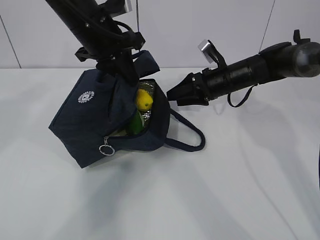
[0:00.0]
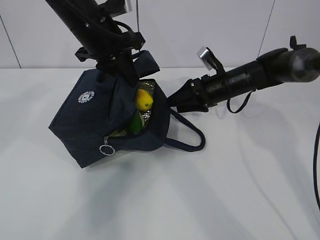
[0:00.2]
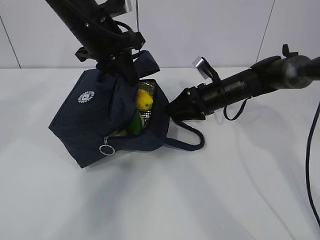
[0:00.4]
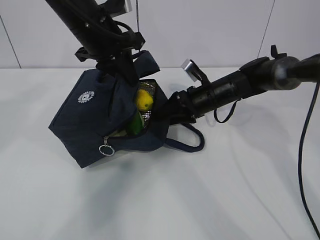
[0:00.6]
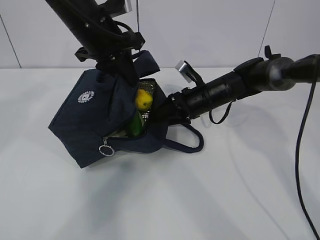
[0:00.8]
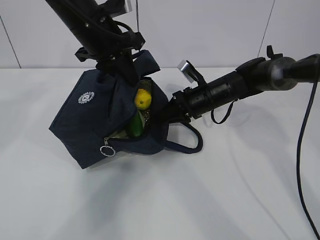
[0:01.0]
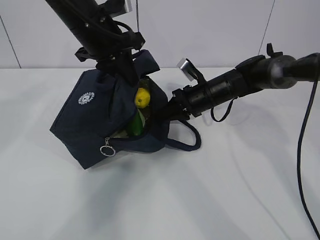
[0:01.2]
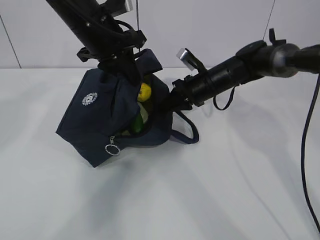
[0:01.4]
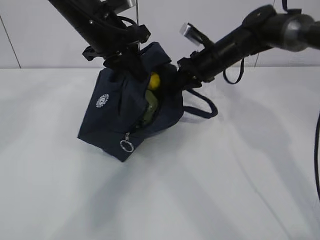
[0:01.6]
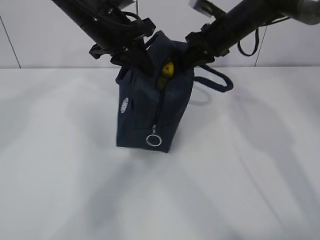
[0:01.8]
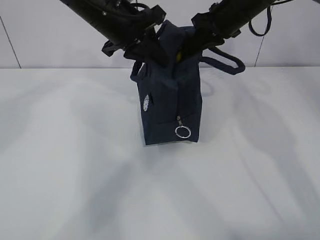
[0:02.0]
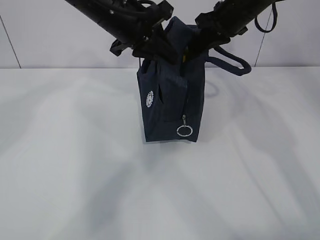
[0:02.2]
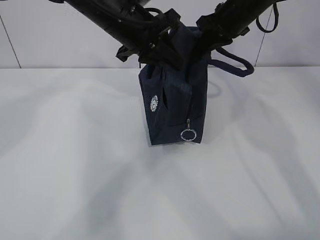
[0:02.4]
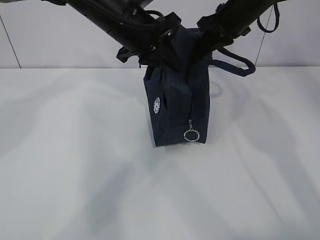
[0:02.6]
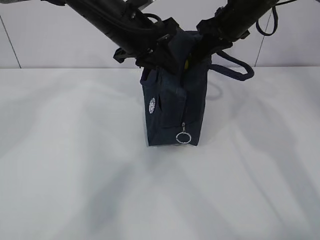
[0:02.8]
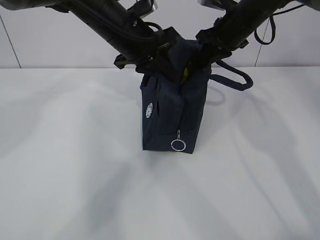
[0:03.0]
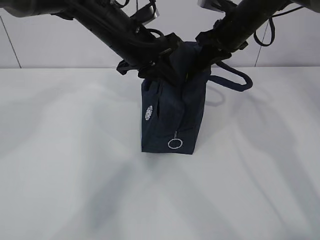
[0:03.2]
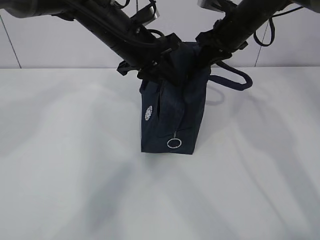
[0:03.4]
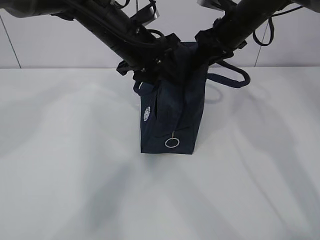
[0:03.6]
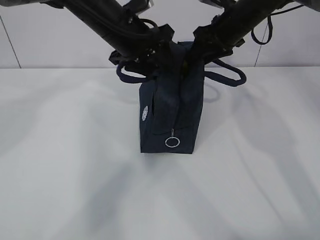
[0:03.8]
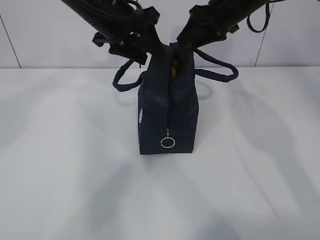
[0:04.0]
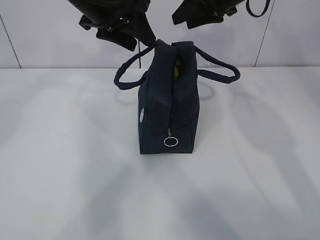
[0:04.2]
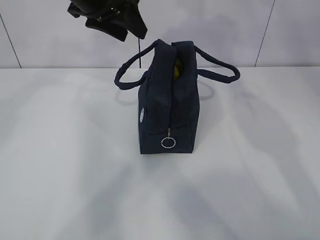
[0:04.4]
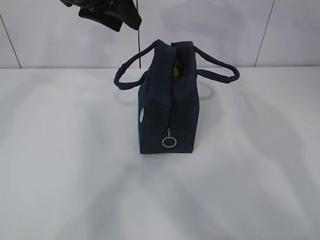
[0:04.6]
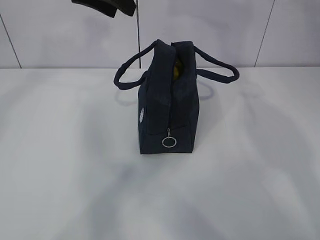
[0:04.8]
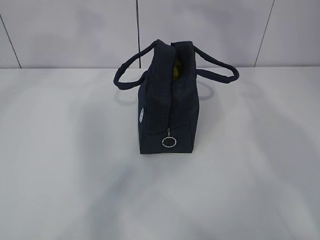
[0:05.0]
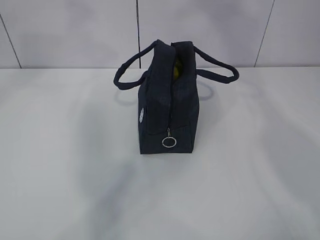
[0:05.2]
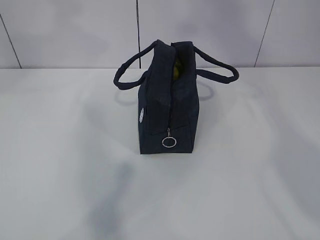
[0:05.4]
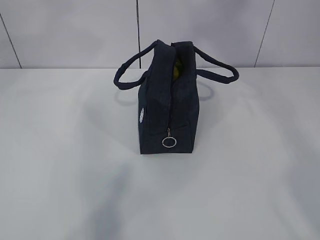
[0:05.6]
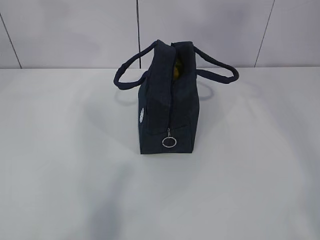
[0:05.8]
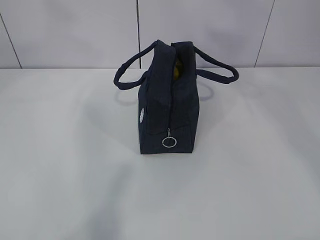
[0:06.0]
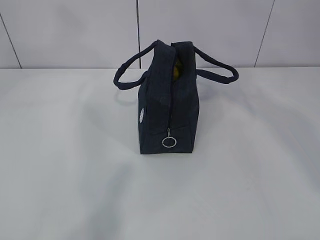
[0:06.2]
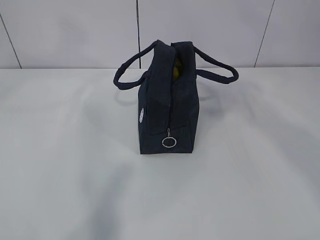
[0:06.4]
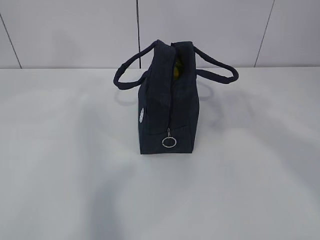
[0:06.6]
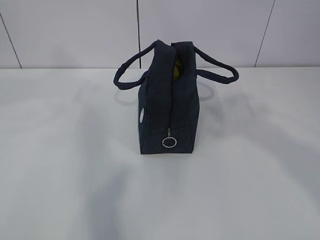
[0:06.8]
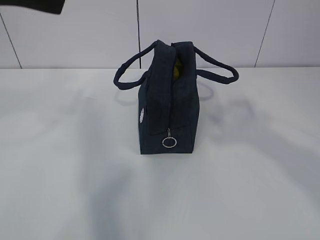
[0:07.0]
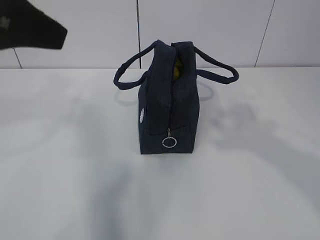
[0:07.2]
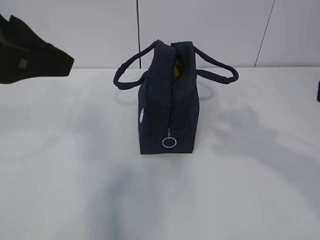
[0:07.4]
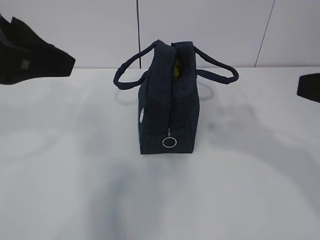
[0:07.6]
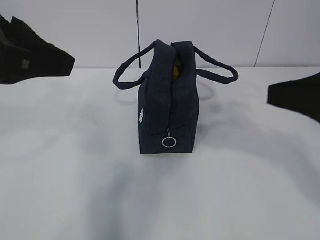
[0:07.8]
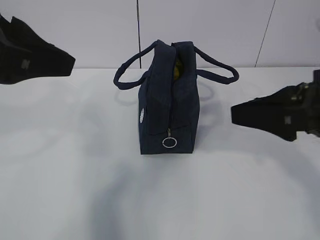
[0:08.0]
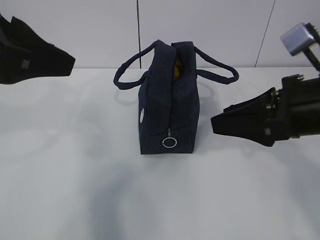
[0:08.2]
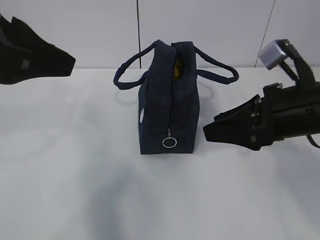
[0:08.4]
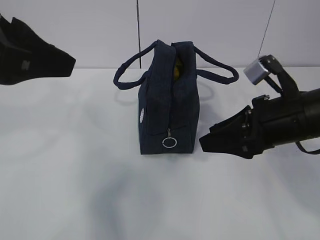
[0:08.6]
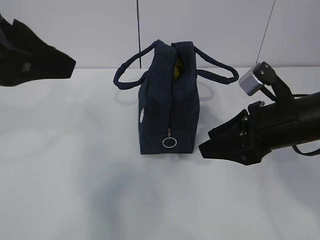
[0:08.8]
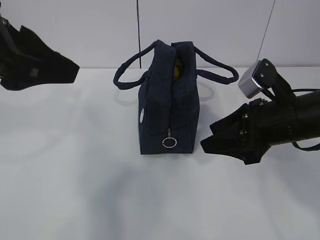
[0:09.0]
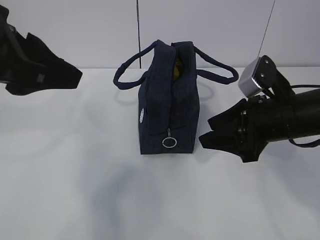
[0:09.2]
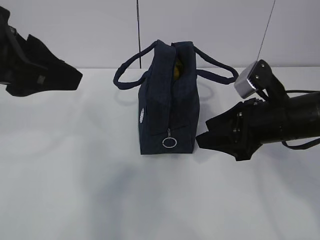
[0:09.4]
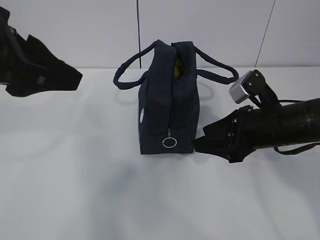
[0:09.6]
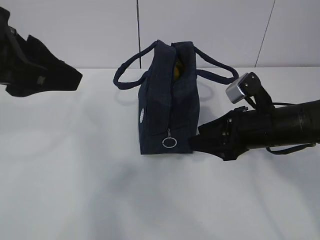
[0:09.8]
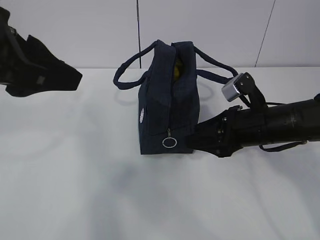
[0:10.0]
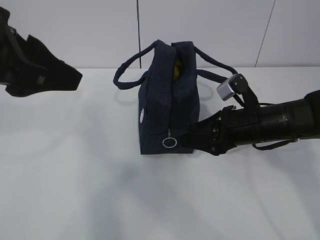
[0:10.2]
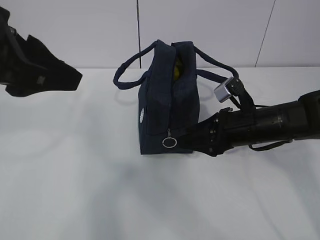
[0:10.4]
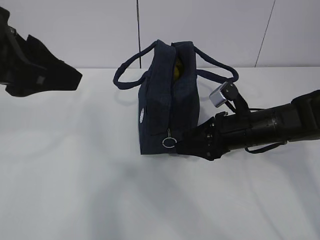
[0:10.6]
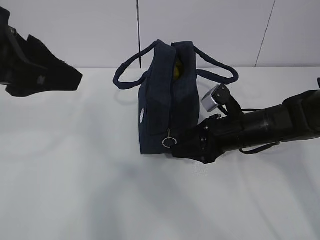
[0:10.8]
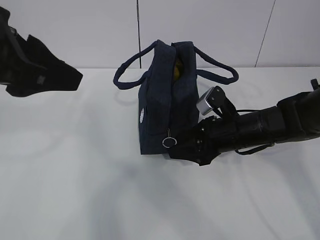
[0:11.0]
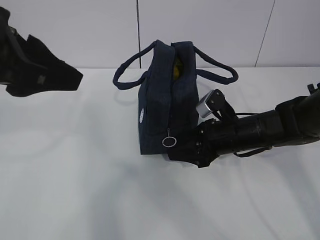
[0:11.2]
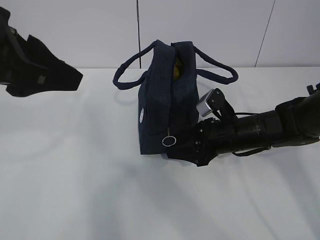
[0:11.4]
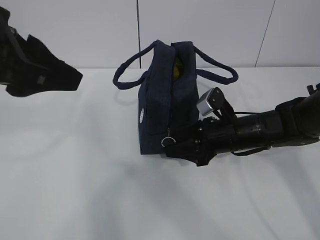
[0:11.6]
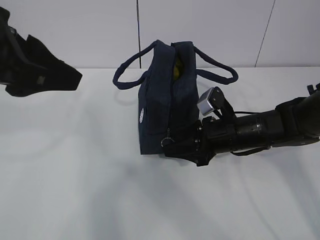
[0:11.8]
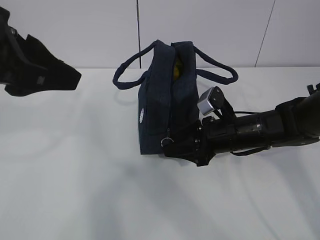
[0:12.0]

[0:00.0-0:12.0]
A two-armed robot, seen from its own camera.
0:00.0 to 0:01.6: The right gripper shifts by about 5 cm, and closes its fingers.
0:01.6 to 0:03.0: The right gripper shifts about 10 cm upward.
0:03.0 to 0:04.4: The left gripper shifts roughly 10 cm upward and to the left, and opens. The right gripper heads upward, covering about 10 cm, and opens.
0:04.4 to 0:06.0: The left gripper is displaced upward and backward by some 20 cm. The right gripper heads backward and upward, covering approximately 50 cm.
0:06.0 to 0:07.6: The right gripper is displaced downward by roughly 30 cm. Meanwhile the left gripper travels downward and backward by about 15 cm.
0:07.6 to 0:09.0: The right gripper moves forward and downward, about 20 cm.
0:09.0 to 0:10.4: The right gripper goes roughly 10 cm downward and forward.
0:10.4 to 0:12.0: There are only small adjustments of the grippers.

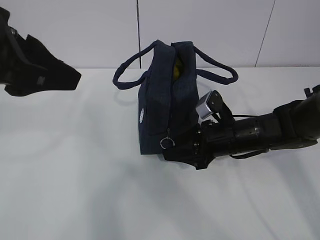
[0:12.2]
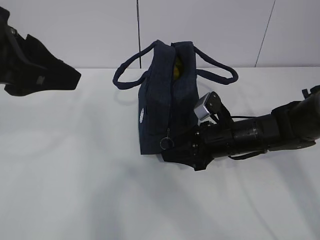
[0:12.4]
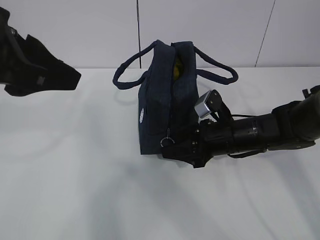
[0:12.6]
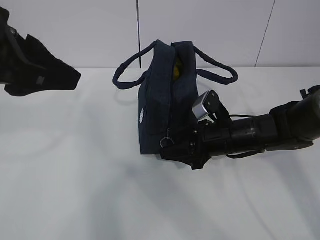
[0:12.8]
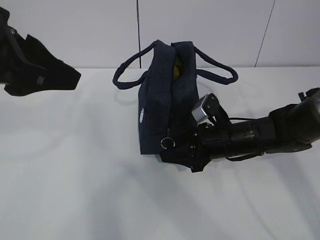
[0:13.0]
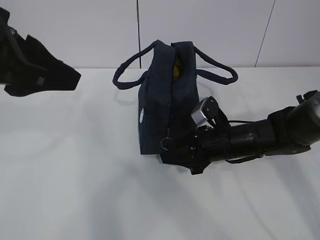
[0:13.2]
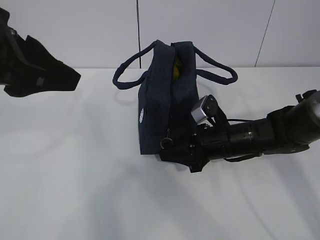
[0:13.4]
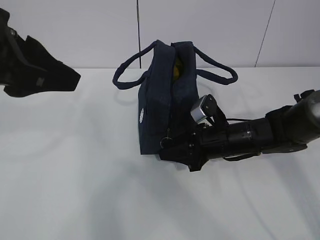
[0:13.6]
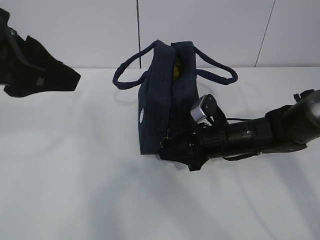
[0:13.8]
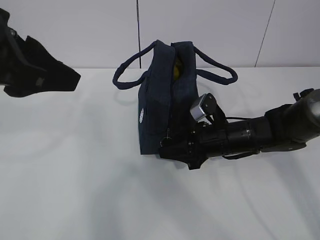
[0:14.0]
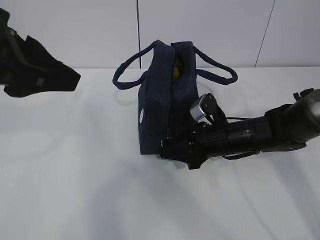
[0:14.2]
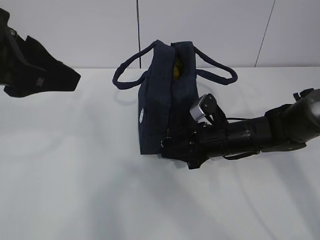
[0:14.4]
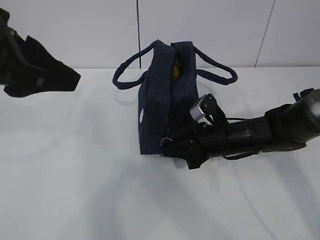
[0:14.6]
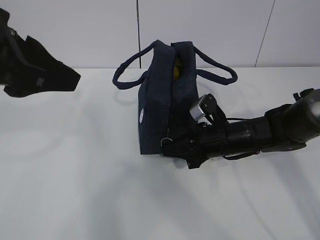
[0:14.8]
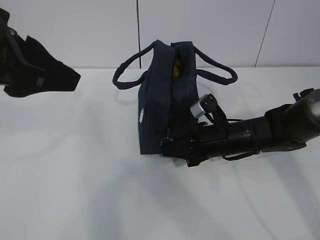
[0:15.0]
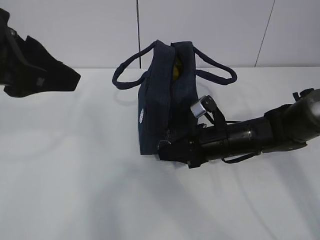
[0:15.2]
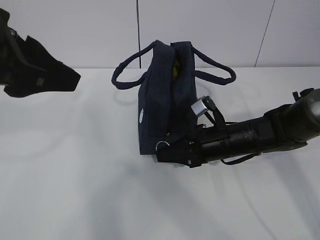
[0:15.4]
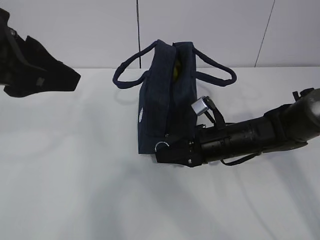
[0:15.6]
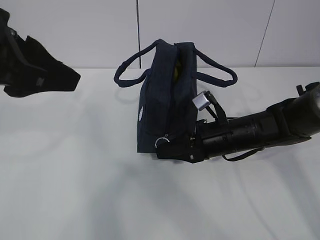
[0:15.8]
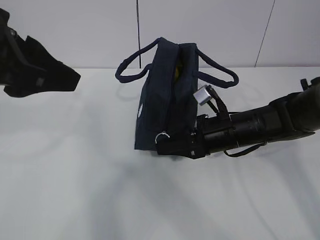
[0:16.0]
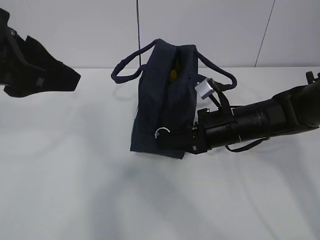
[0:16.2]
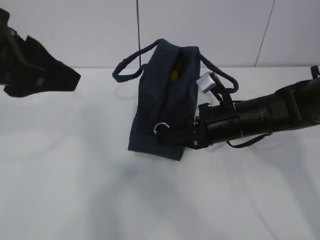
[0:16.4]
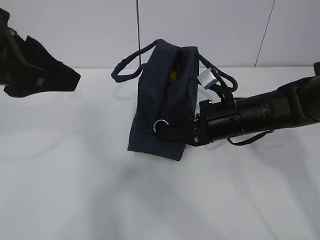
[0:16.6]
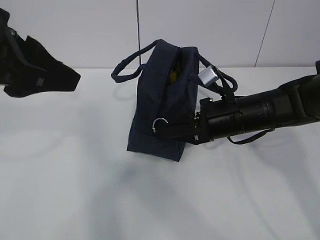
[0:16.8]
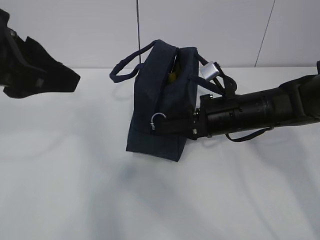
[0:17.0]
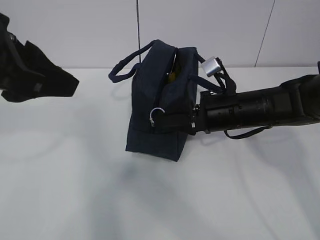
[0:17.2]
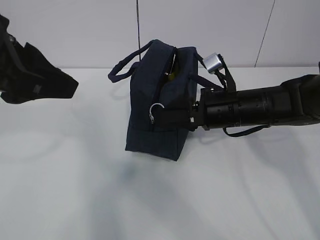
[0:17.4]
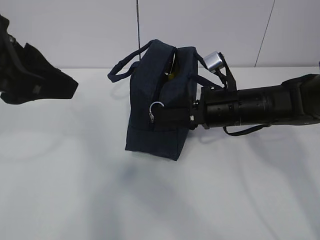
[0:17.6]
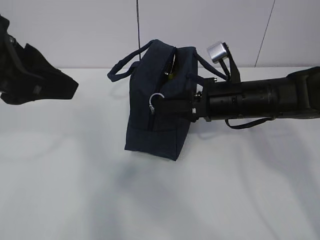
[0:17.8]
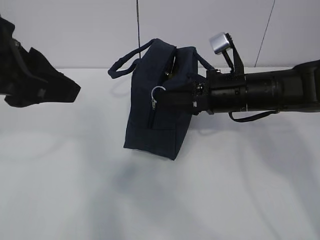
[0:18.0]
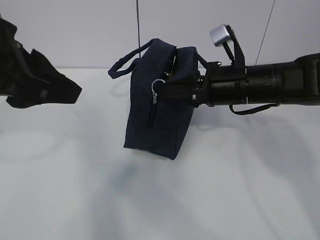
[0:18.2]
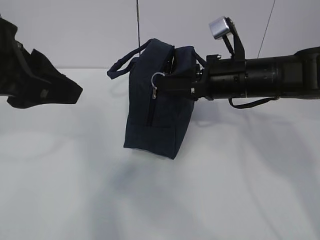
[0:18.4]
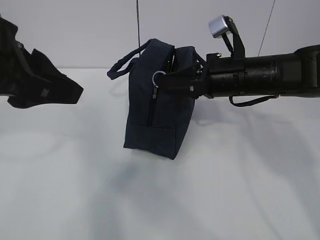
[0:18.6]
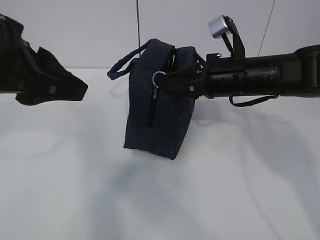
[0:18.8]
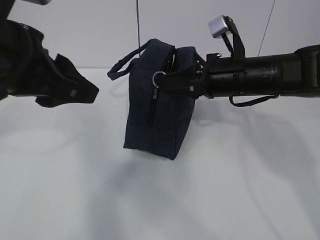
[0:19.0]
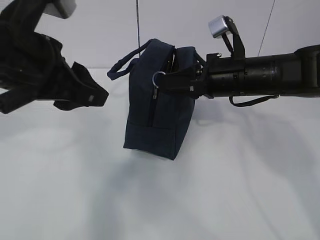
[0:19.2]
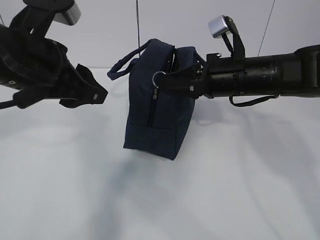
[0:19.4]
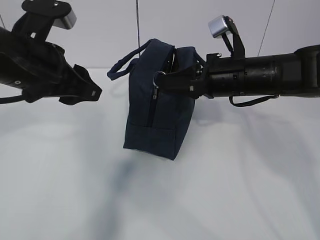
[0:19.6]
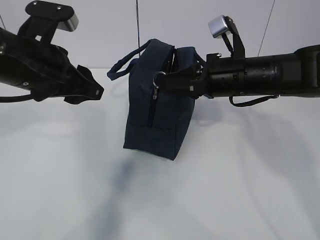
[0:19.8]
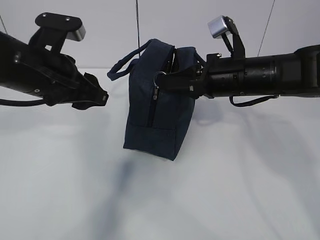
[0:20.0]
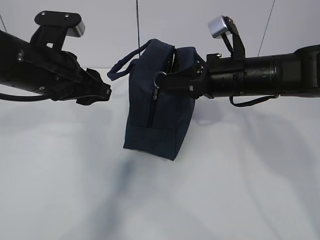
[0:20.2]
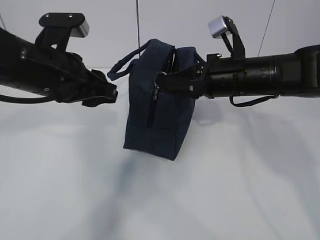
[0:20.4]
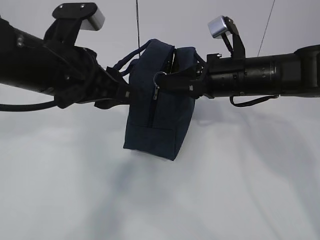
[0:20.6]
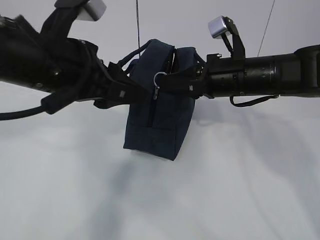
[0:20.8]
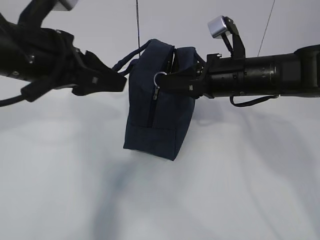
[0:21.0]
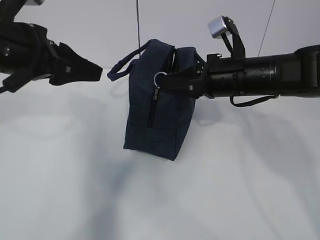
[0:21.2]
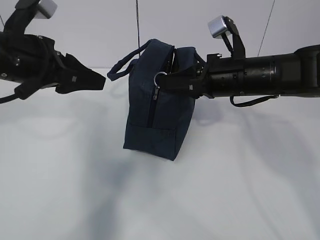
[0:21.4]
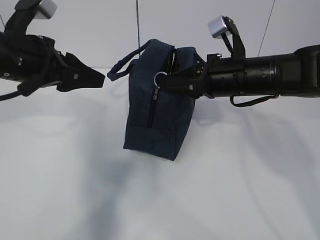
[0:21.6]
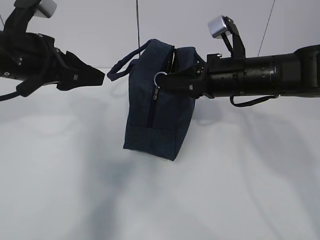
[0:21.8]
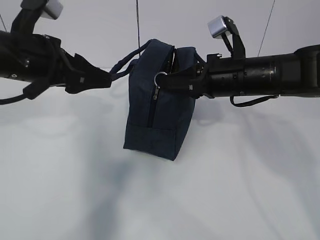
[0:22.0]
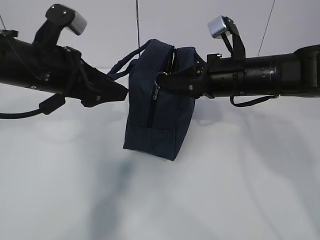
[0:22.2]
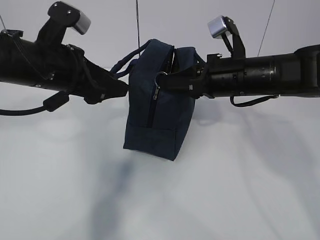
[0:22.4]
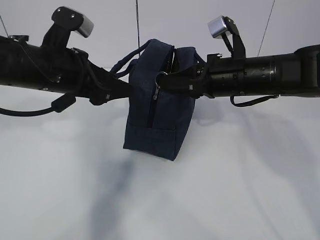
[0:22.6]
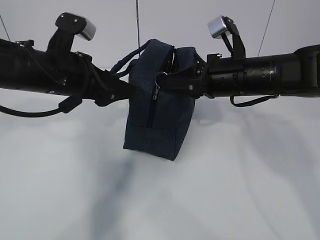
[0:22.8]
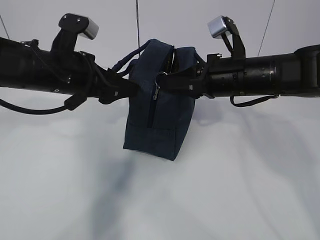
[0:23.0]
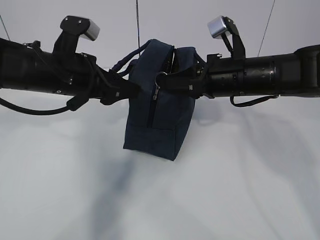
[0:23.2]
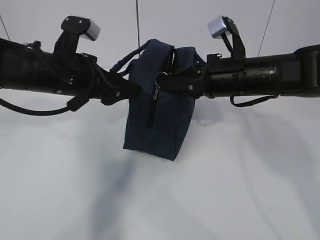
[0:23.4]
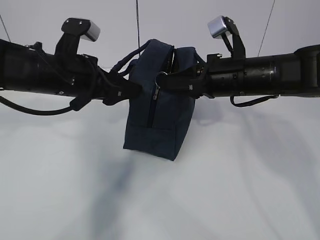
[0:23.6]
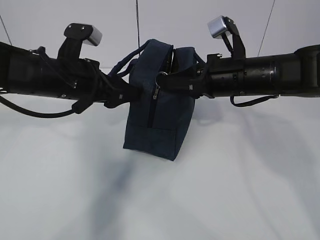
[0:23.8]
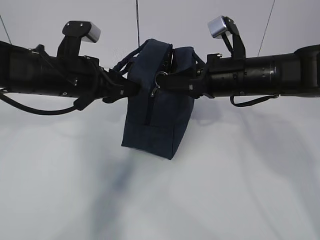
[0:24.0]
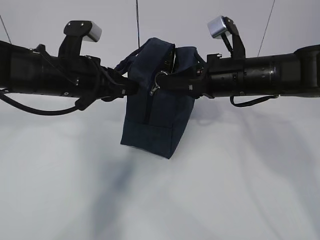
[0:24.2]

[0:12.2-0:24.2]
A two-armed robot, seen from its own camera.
Step, 0:12.2 to 0:23.4: Grab the lunch bag with your left hand.
0:12.2 to 0:13.8: There are only small adjustments of the grippers.
0:13.8 to 0:15.2: The right gripper closes.
0:15.2 to 0:16.6: The right gripper heads upward, covering some 5 cm.
0:16.6 to 0:18.2: The right gripper shifts about 5 cm upward.
0:18.2 to 0:19.8: The left gripper heads forward and downward, covering some 10 cm.
0:21.2 to 0:22.6: The left gripper shifts by some 5 cm, and opens up.
0:22.6 to 0:24.2: The left gripper closes.
